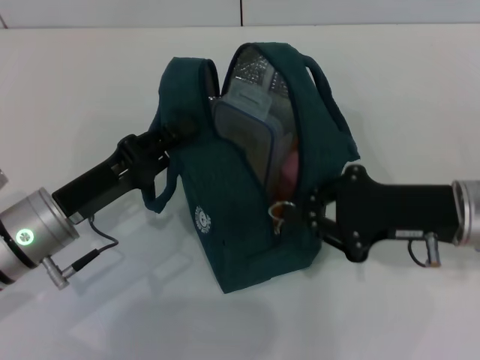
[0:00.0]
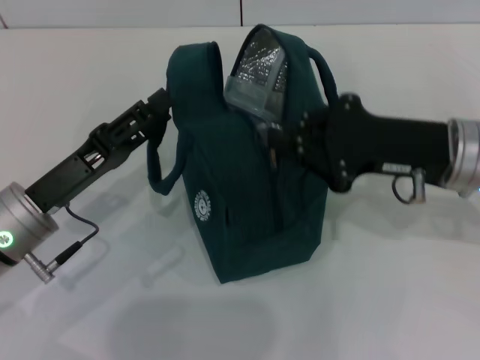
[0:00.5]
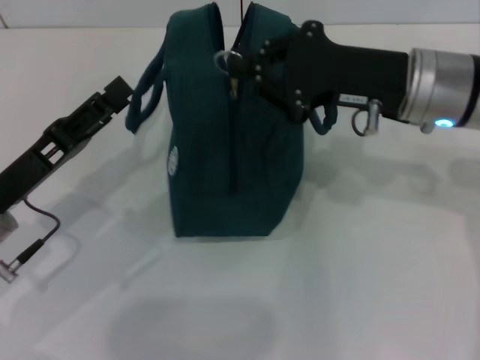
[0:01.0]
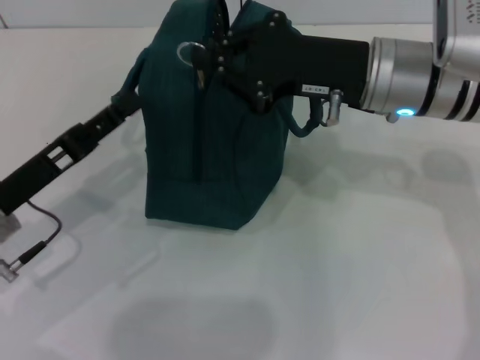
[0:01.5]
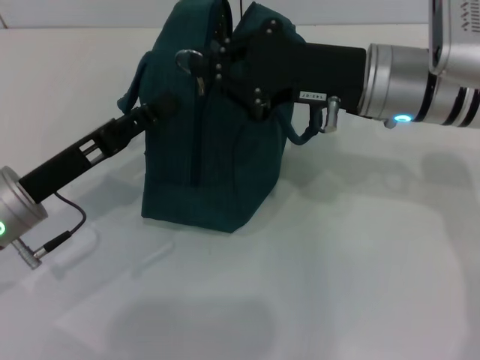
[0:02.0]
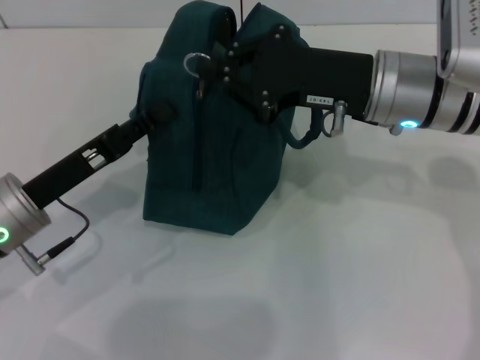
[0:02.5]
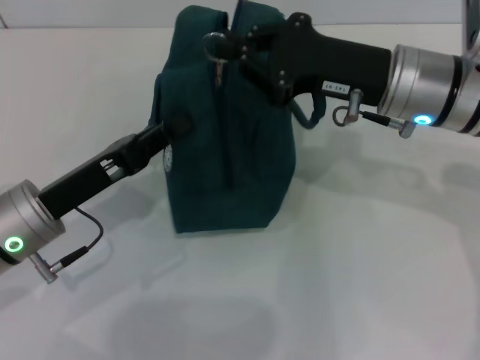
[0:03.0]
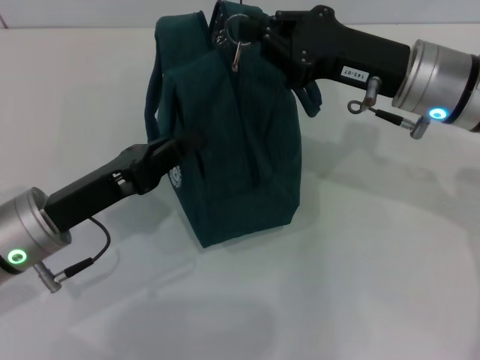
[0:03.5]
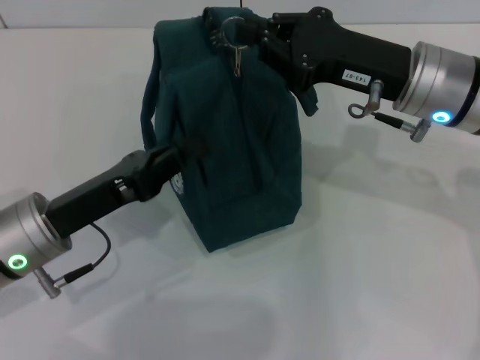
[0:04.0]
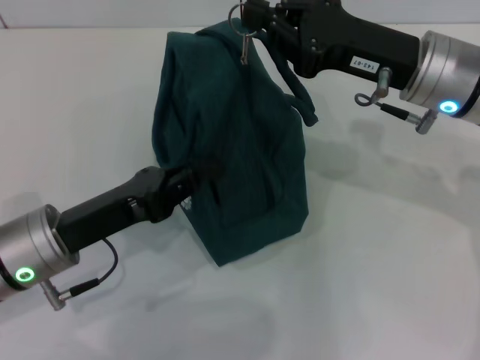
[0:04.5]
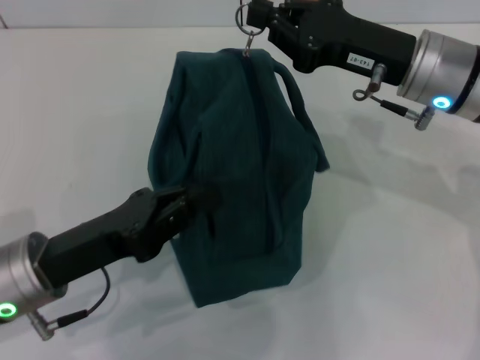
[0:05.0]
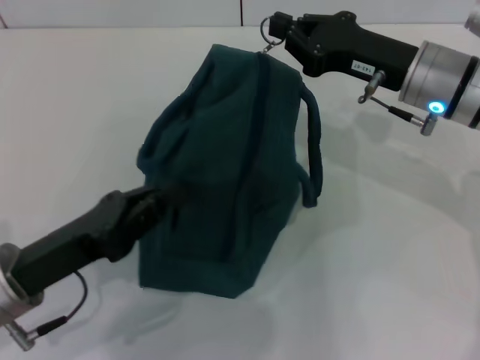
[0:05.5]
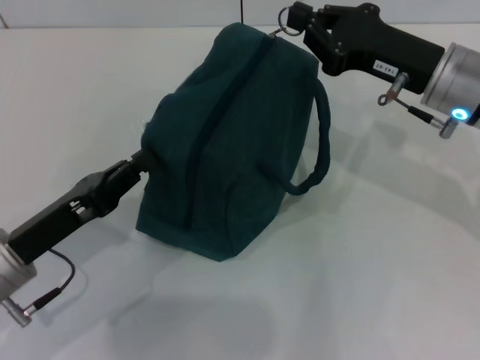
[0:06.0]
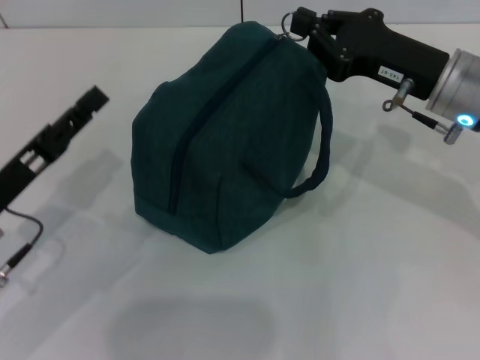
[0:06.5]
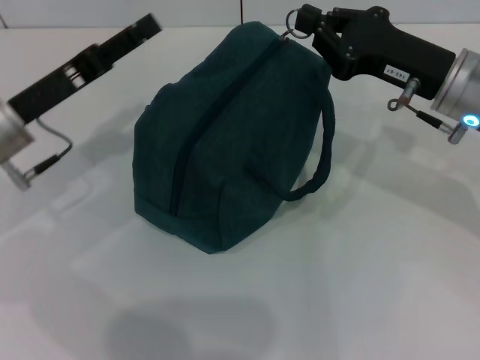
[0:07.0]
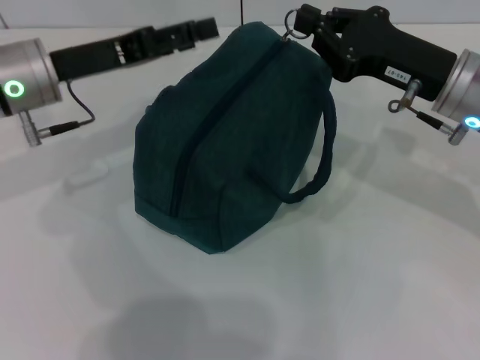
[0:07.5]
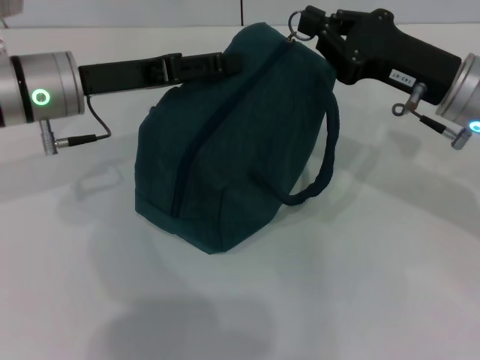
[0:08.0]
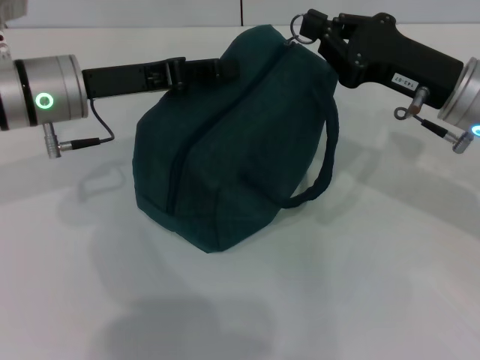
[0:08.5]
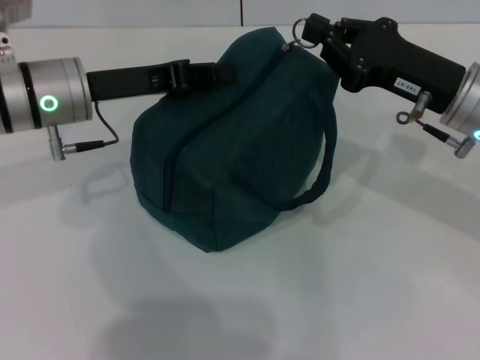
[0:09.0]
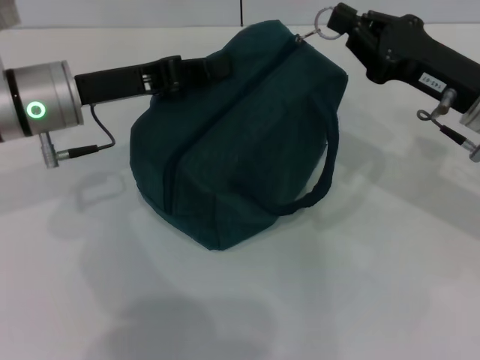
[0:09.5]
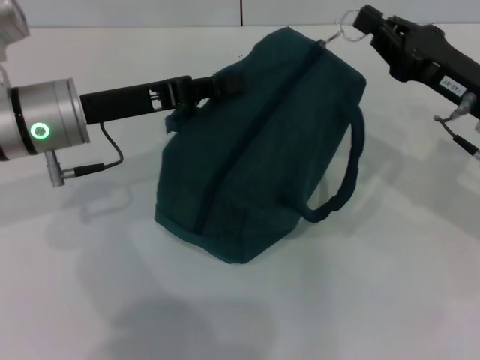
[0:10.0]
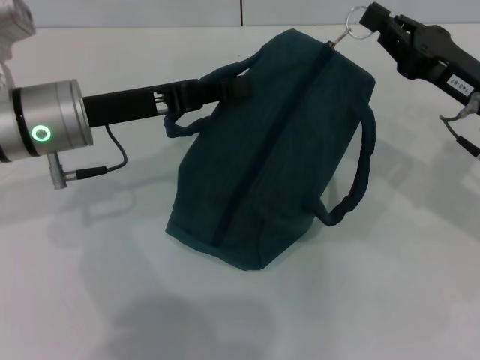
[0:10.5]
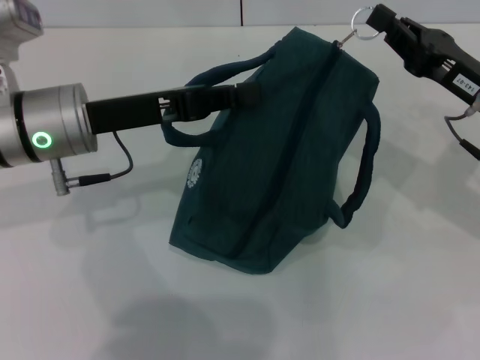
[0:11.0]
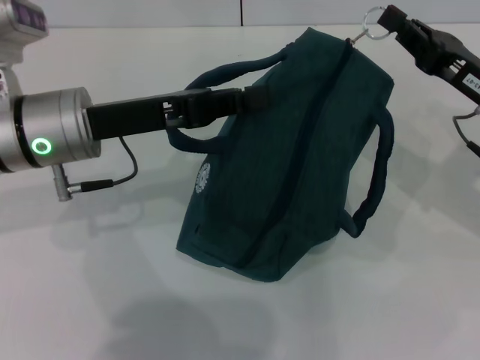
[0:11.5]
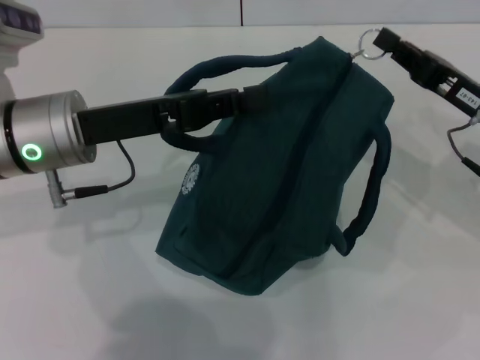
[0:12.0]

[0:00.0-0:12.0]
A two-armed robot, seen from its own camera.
0:00.0 to 0:02.0: The left gripper opens up, while the right gripper moves to the left, forward and upward, some 15 cm.
0:02.0 to 0:04.0: The left gripper closes its fingers.
0:04.0 to 0:06.0: The grippers move only a little.
0:06.0 to 0:08.0: The left gripper travels forward and upward by some 20 cm, and opens.
0:08.0 to 0:10.0: The left gripper closes up.

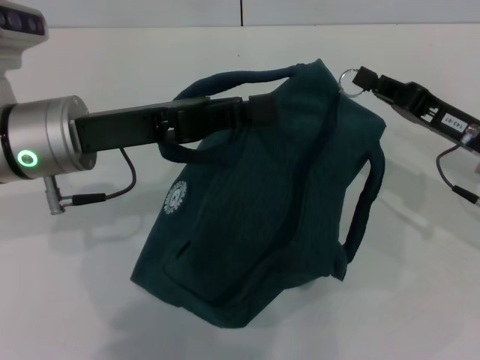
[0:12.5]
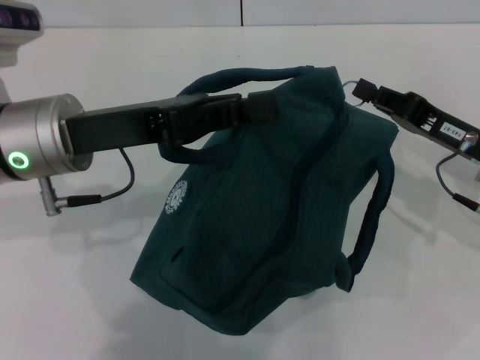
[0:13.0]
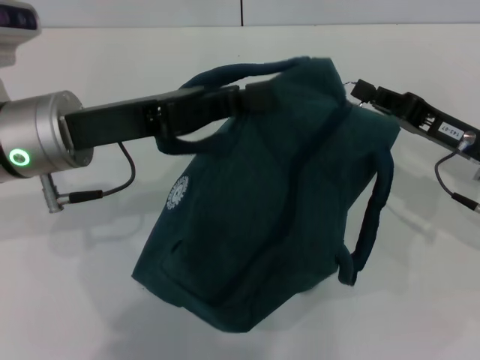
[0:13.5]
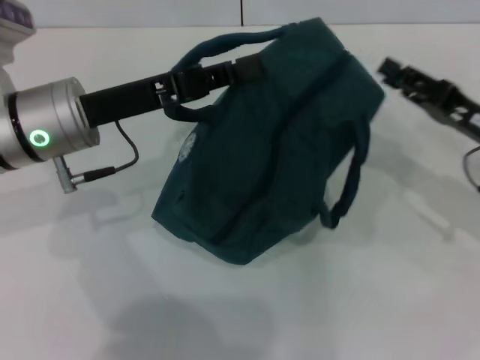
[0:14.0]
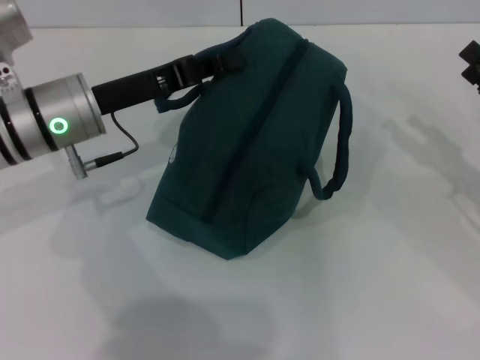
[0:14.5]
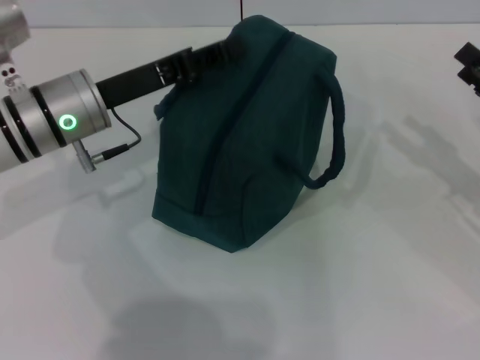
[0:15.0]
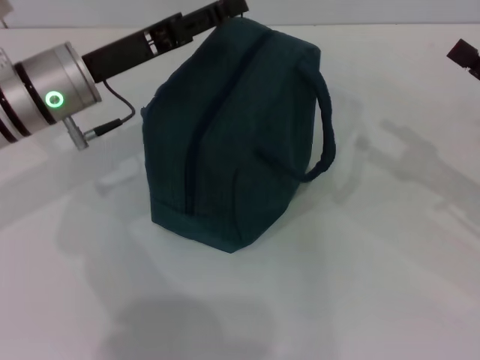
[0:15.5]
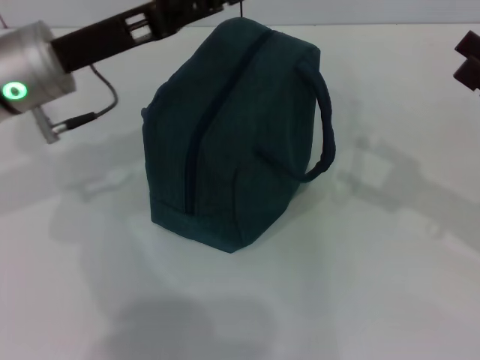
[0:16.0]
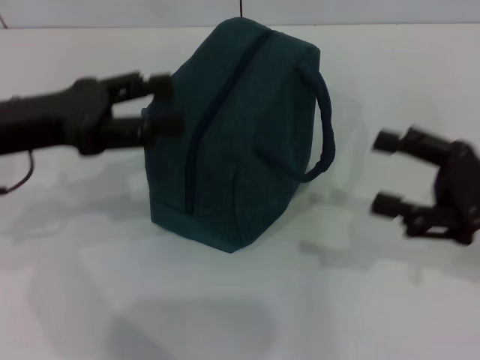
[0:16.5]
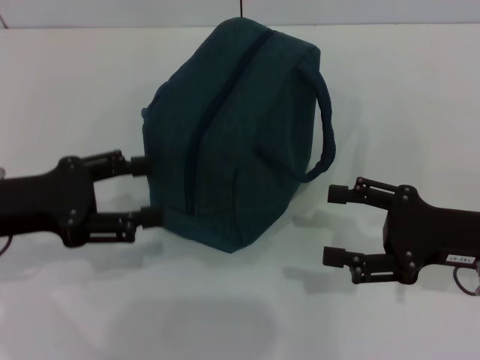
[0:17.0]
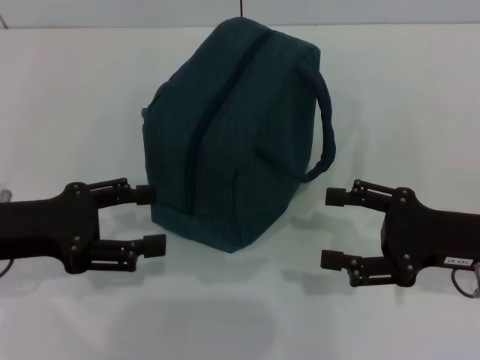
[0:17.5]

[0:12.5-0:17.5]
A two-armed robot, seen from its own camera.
Step, 0:14.0 to 0:14.5: Hold the lunch bag with your left hand.
0:12.5 to 0:15.0: The right gripper is displaced to the right by approximately 5 cm, and opens; the left gripper changes place by approximately 5 cm.
0:15.0 to 0:17.5: The right gripper heads to the left, covering roughly 5 cm. Meanwhile the left gripper goes some 15 cm backward and to the left, and opens.
